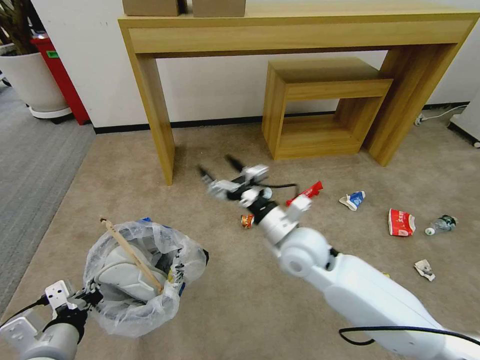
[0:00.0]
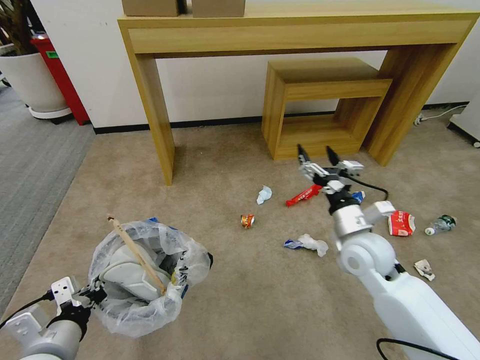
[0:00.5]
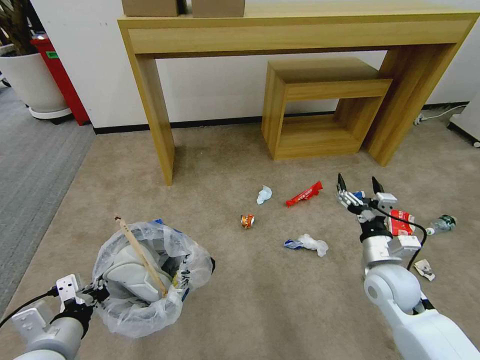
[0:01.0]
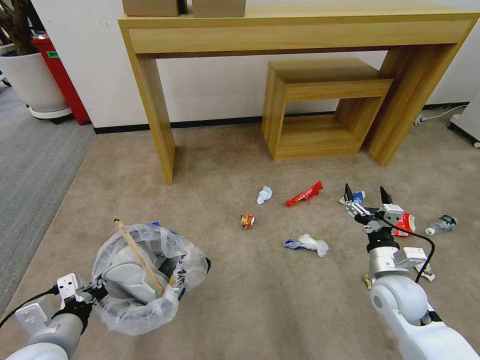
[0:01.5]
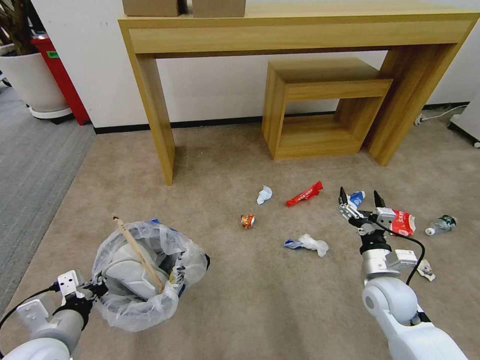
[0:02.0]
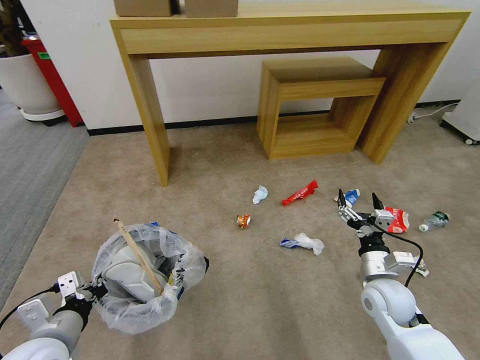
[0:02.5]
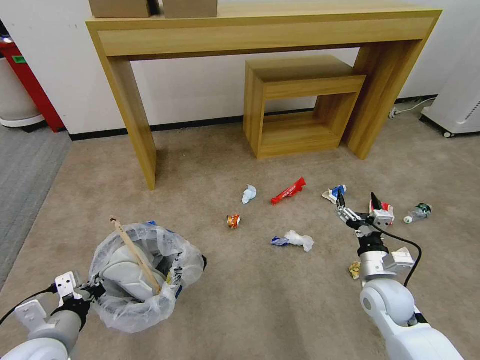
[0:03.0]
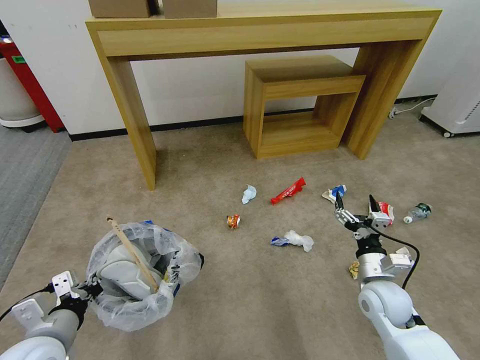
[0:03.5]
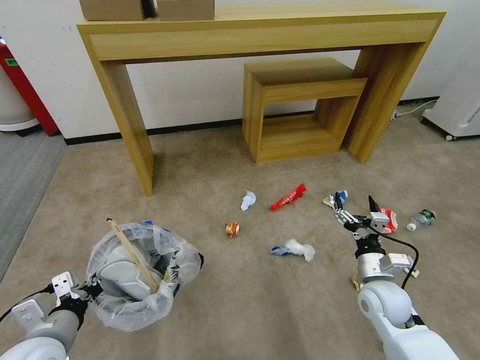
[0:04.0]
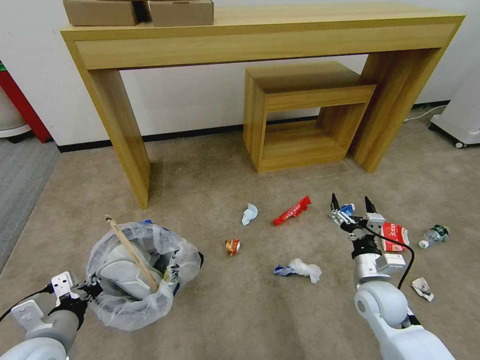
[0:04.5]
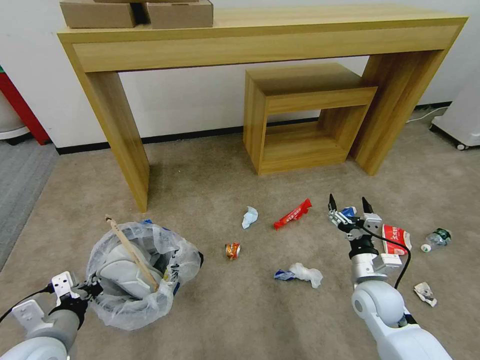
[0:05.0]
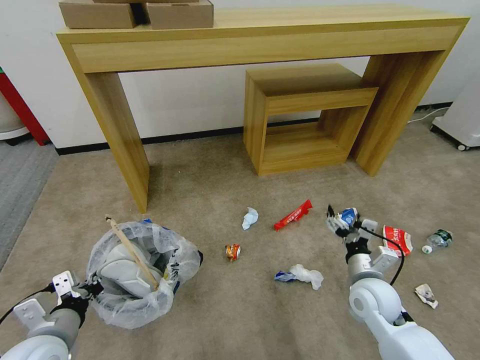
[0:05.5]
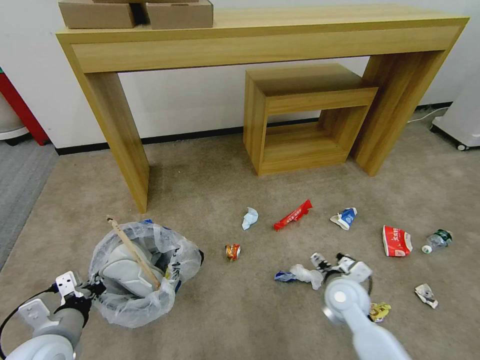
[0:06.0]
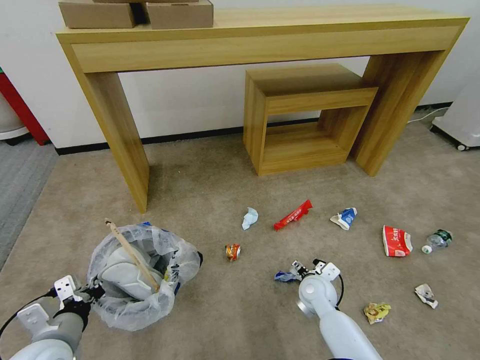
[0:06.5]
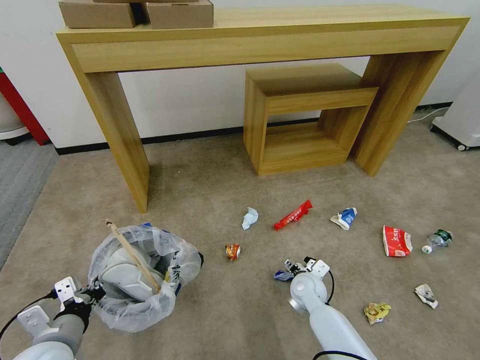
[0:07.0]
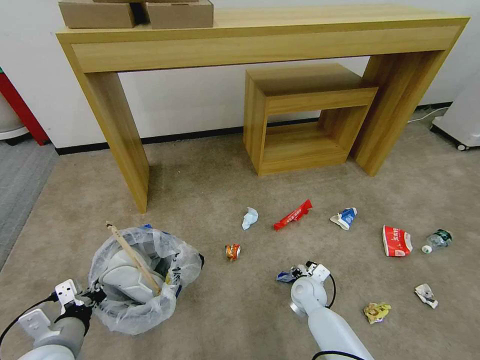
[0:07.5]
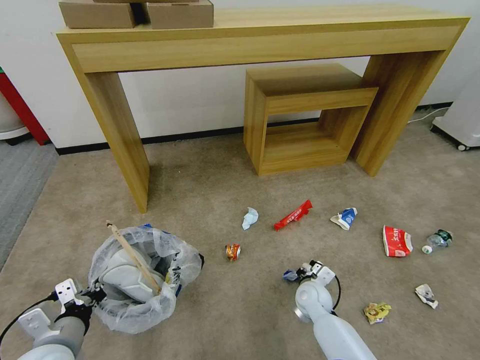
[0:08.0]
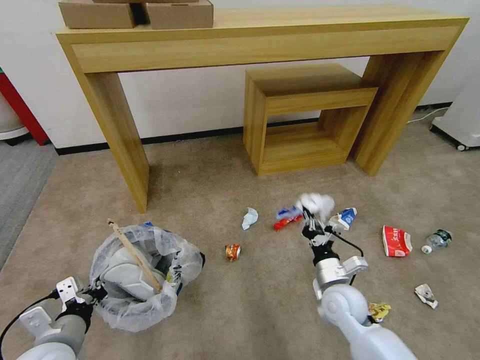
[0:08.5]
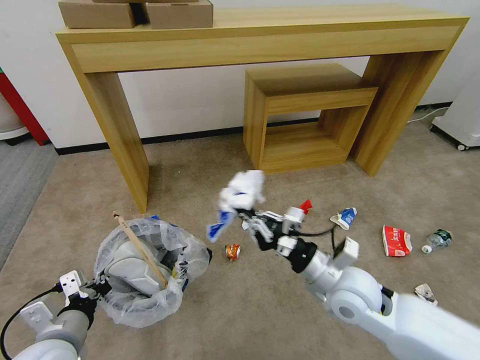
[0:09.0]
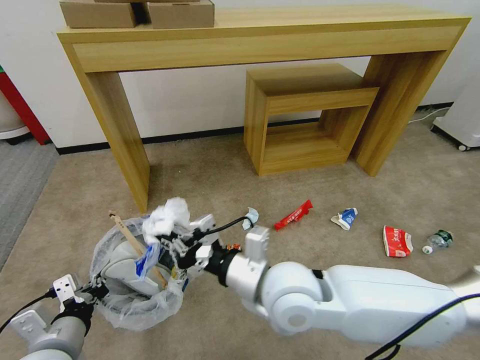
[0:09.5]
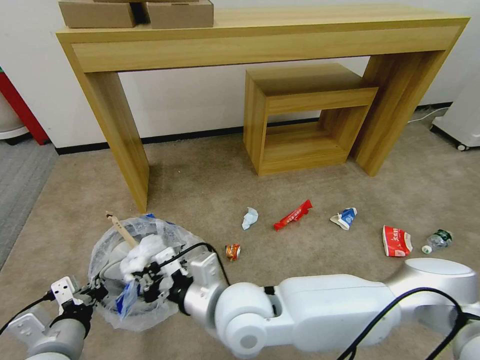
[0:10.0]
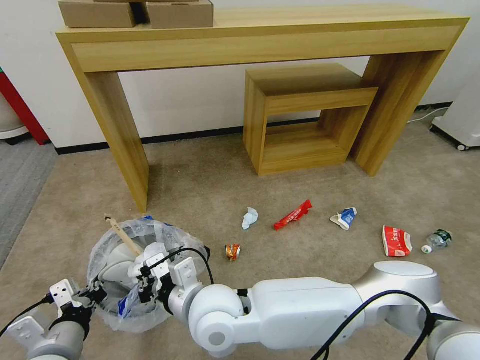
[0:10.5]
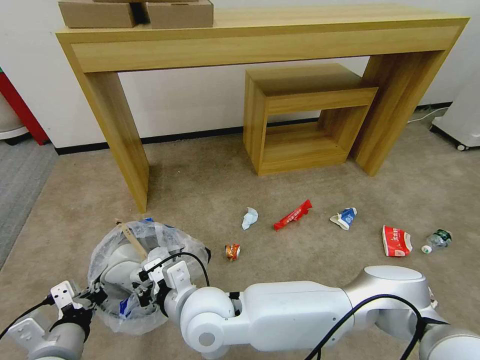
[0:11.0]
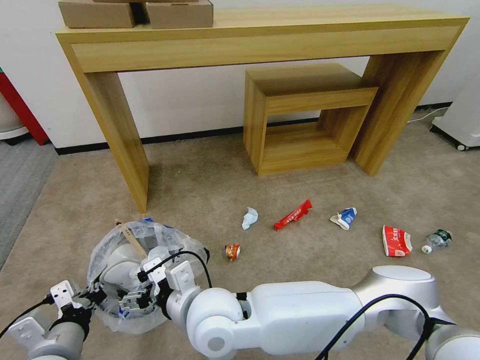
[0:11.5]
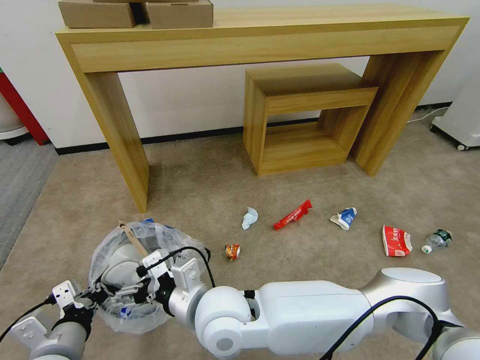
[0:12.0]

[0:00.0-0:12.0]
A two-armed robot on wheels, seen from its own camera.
Task of the whole recording: Pick up the trash bin and place the garbage on the floor into it.
0.0 to 2.0 s: The right gripper travels to the right and downward by about 25 cm.
4.0 to 6.0 s: The right gripper travels to the left by approximately 5 cm.
6.0 to 8.0 s: The right gripper shifts roughly 10 cm downward, and closes its fingers.
8.0 to 10.0 s: The right gripper moves upward, to the left and backward, some 35 cm; the left gripper moves some 5 cm.
10.0 to 12.0 s: The right gripper opens.

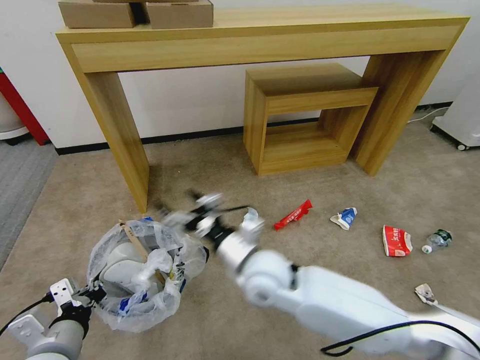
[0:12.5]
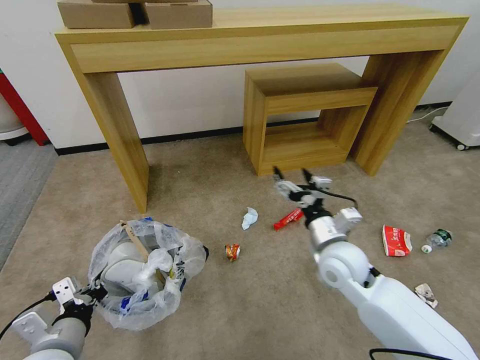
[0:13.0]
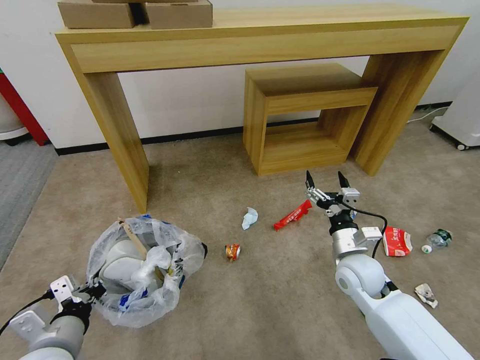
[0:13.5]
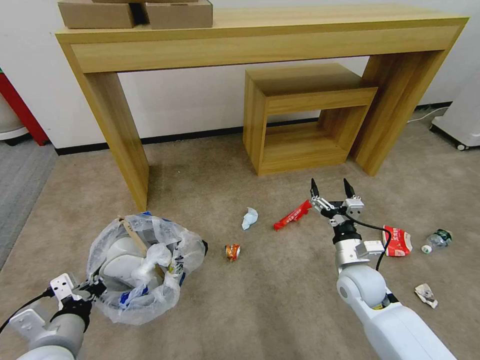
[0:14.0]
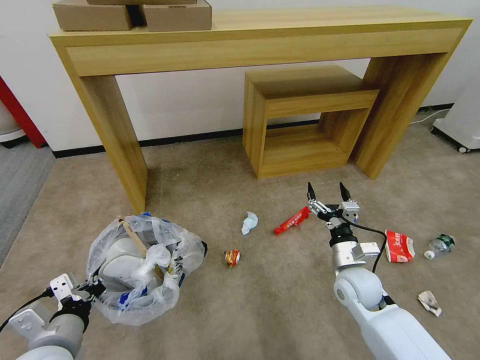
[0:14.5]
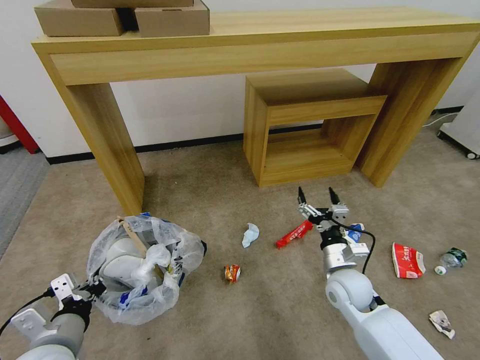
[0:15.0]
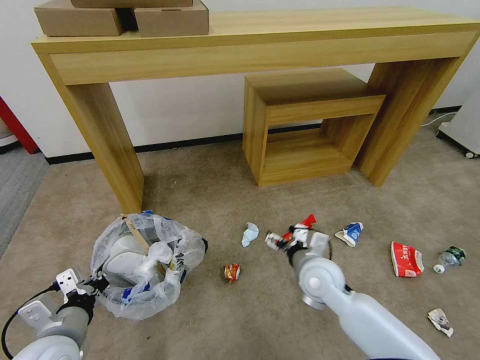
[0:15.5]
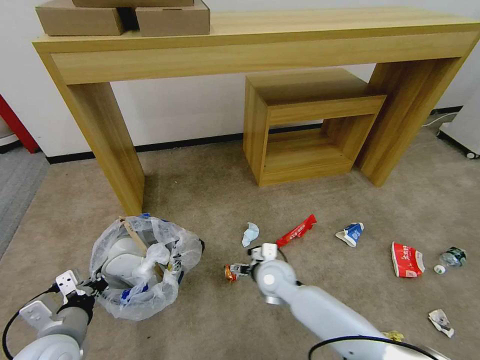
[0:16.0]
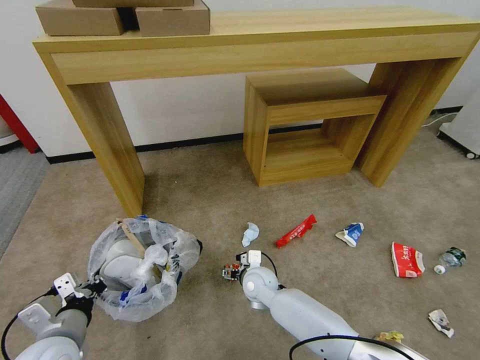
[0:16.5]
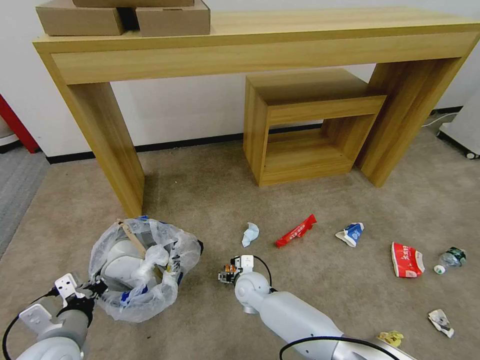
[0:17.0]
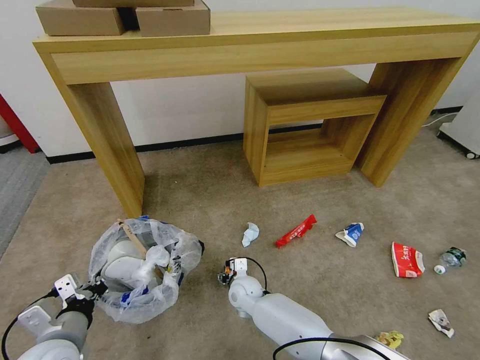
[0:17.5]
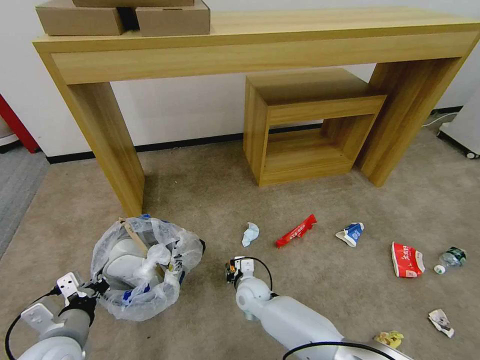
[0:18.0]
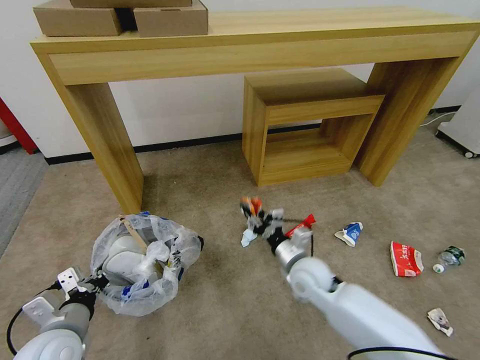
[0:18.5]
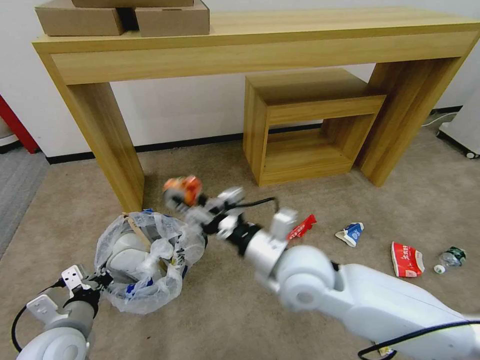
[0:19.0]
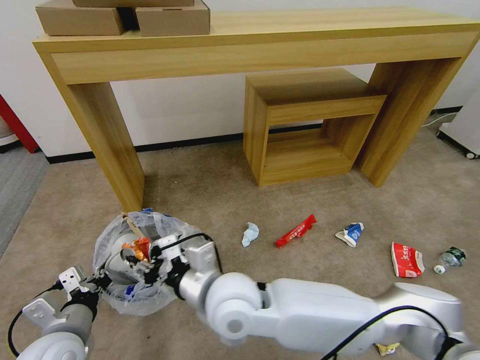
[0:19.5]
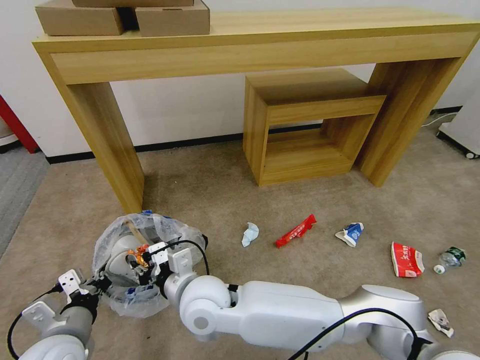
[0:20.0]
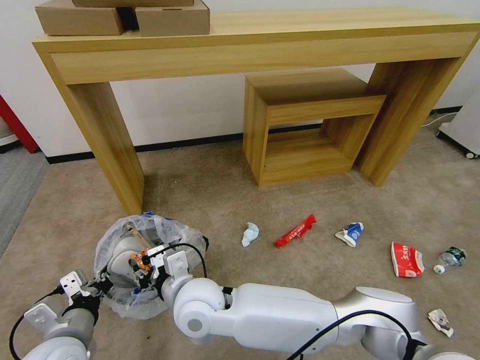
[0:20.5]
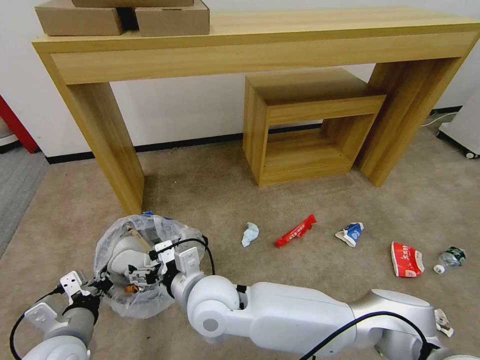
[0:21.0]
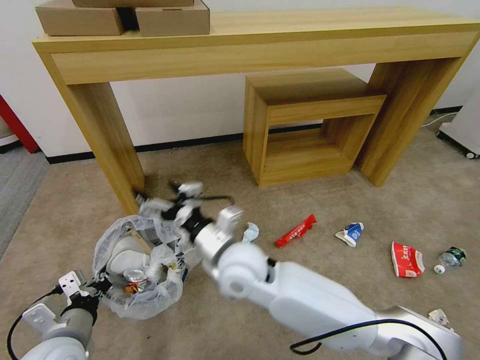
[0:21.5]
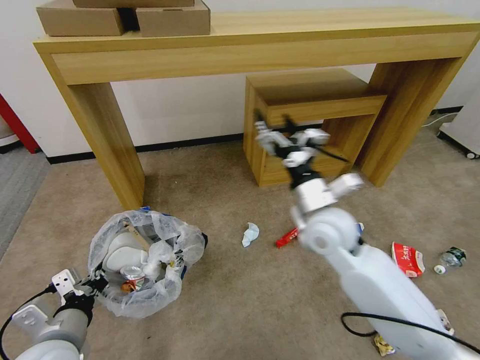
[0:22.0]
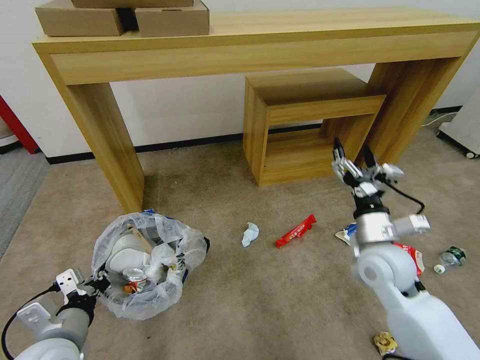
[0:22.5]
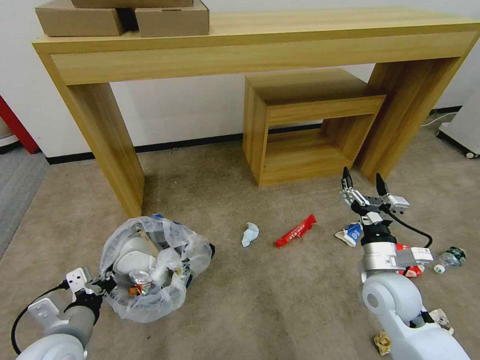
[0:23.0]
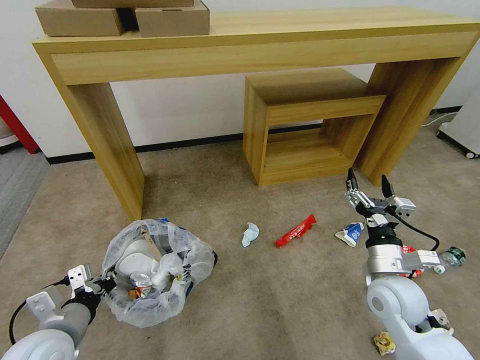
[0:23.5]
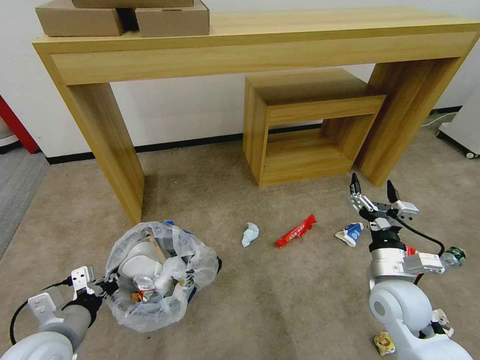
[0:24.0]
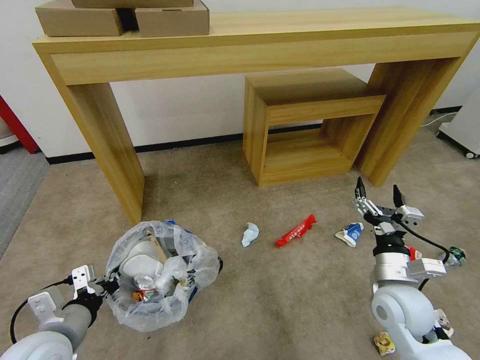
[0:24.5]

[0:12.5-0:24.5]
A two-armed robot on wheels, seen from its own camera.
Task of the whole recording: Pick up the trash bin and place the garbage on the floor into it.
12.5 to 14.5 s: The right gripper is displaced to the right and downward by some 25 cm.
14.5 to 16.5 s: The right gripper is displaced to the left by some 20 cm.
16.5 to 18.5 s: The right gripper shifts roughly 15 cm upward and to the right, and closes up.
18.5 to 20.5 s: The right gripper goes about 25 cm to the left.
20.5 to 22.5 s: The right gripper travels to the right by roughly 35 cm, and opens its fingers.
22.5 to 24.5 s: The right gripper shifts roughly 10 cm backward and downward.

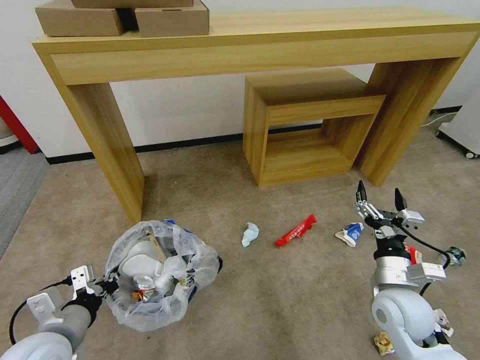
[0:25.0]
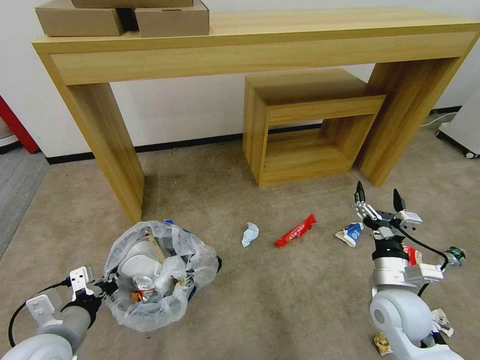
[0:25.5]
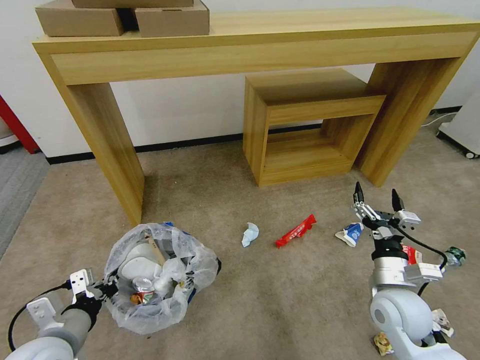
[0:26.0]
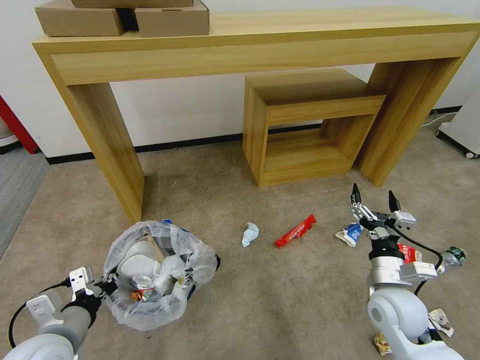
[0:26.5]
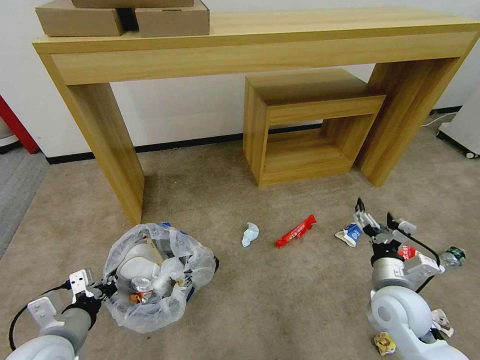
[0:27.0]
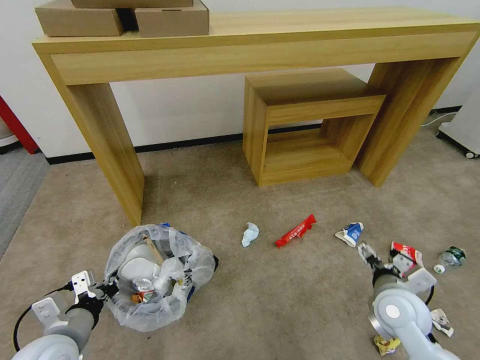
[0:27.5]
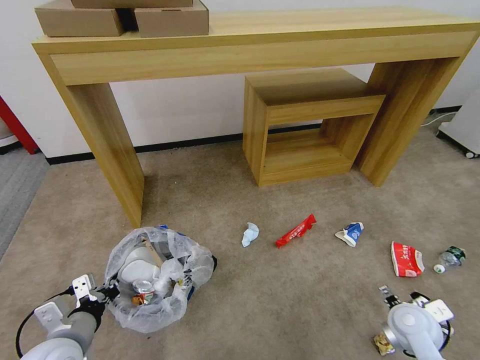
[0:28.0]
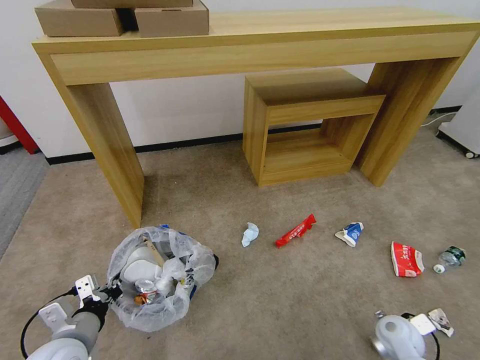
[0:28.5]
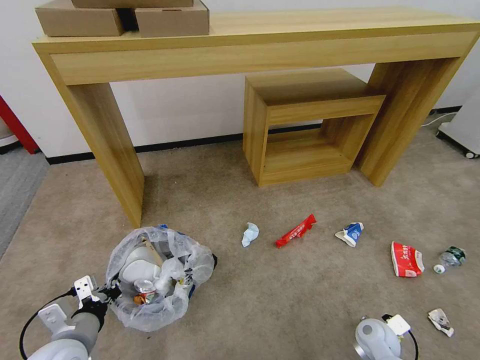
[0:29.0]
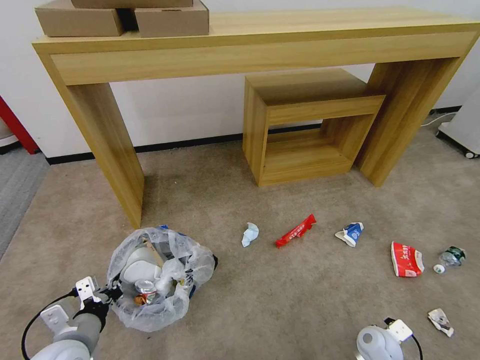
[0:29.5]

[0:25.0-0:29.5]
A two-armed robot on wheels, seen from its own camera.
Task of the whole recording: Pick up the trash bin and place the garbage on the floor into it.
25.0 to 27.0 s: The grippers make only small movements.
27.0 to 29.5 s: The right gripper travels downward by about 20 cm, and closes up.
